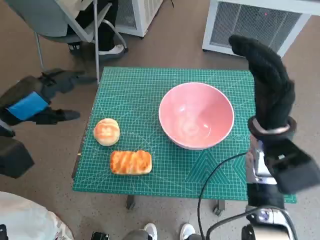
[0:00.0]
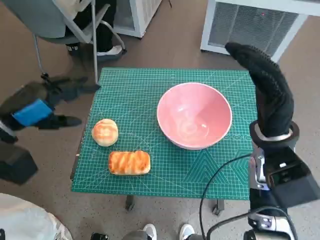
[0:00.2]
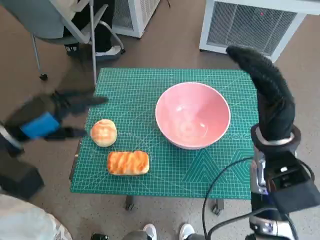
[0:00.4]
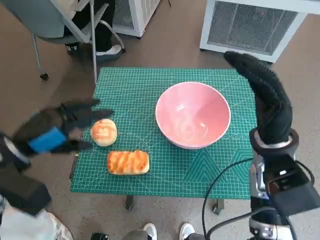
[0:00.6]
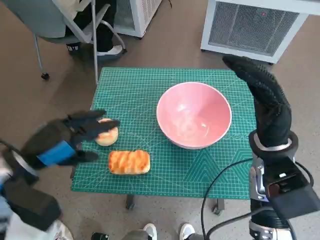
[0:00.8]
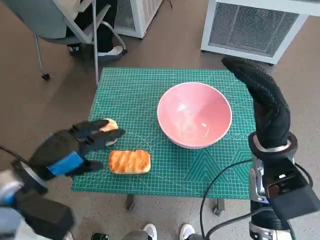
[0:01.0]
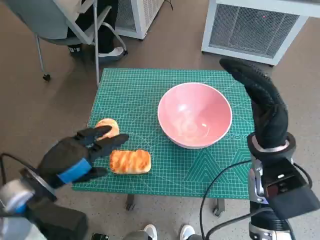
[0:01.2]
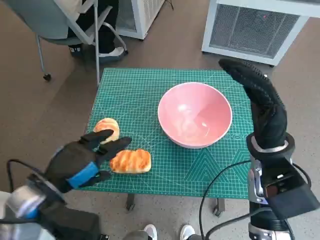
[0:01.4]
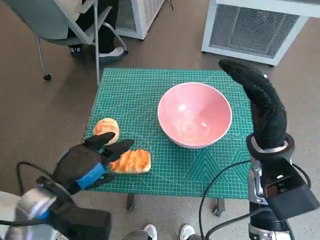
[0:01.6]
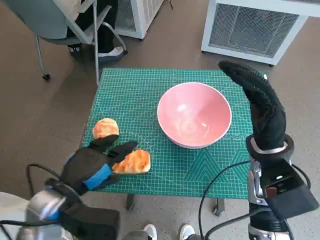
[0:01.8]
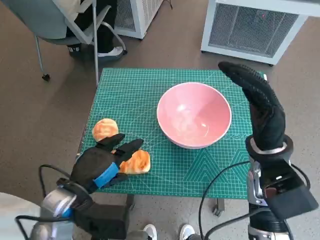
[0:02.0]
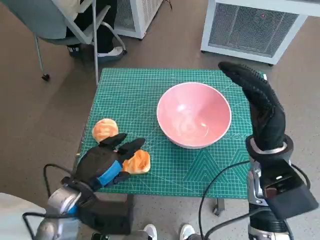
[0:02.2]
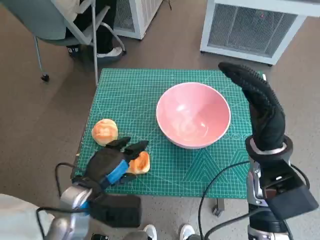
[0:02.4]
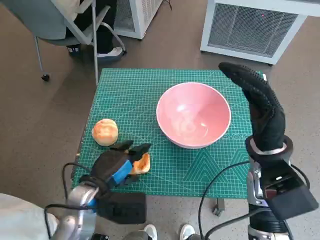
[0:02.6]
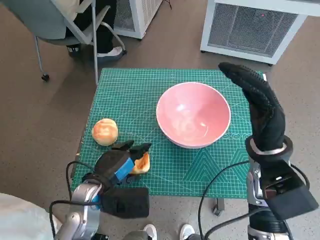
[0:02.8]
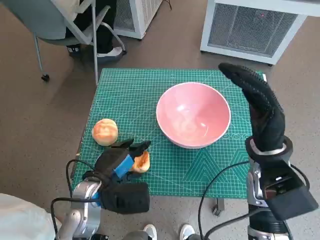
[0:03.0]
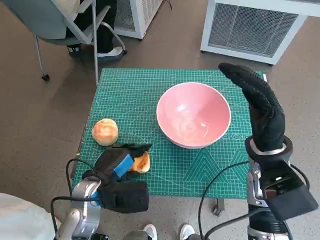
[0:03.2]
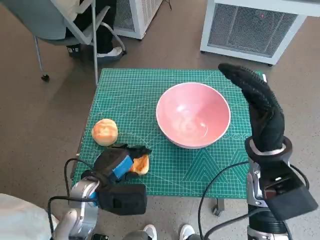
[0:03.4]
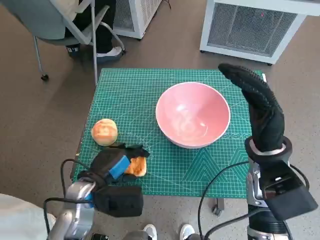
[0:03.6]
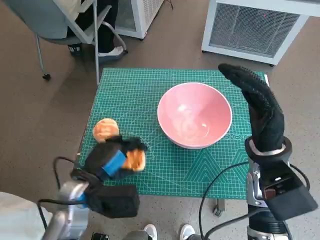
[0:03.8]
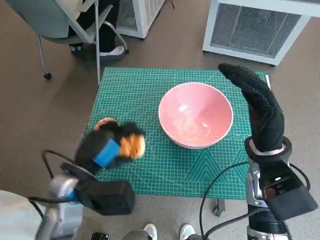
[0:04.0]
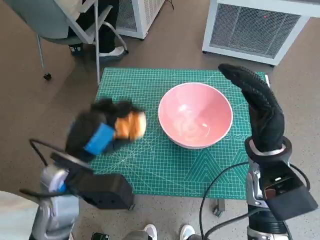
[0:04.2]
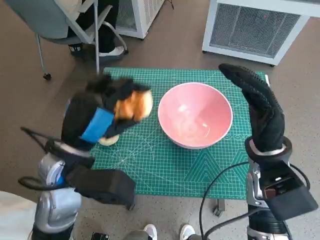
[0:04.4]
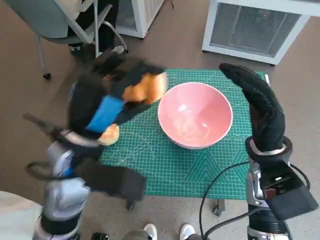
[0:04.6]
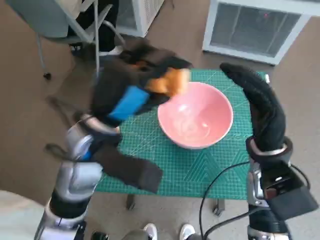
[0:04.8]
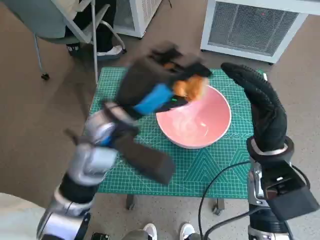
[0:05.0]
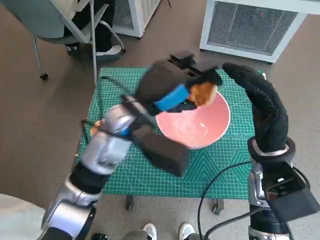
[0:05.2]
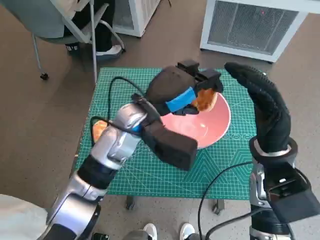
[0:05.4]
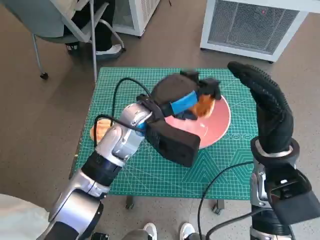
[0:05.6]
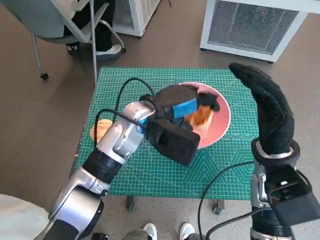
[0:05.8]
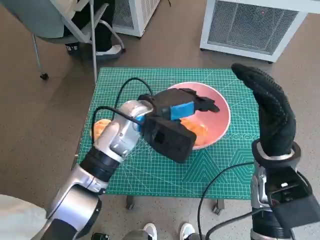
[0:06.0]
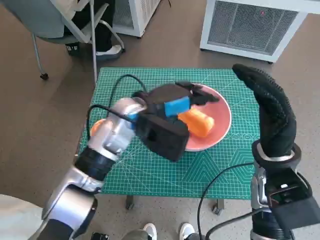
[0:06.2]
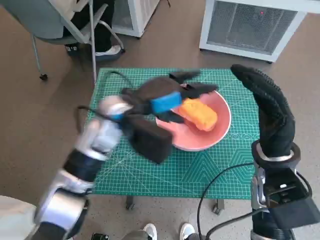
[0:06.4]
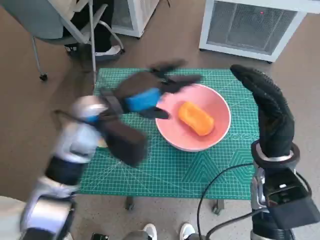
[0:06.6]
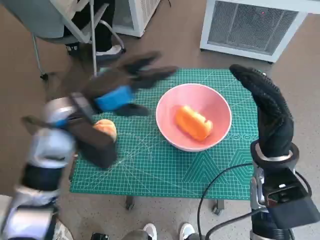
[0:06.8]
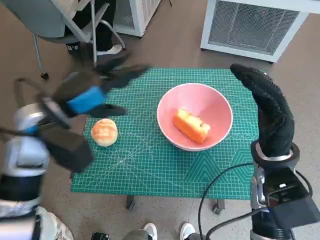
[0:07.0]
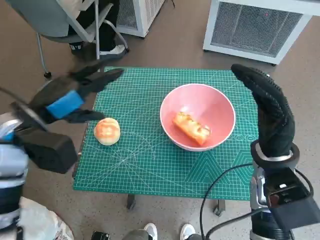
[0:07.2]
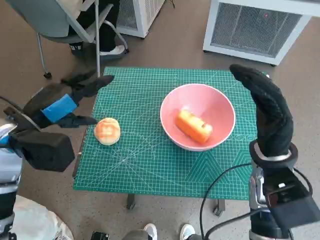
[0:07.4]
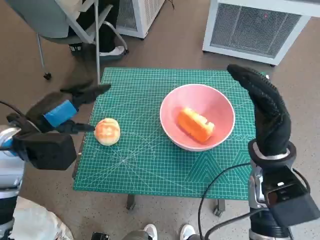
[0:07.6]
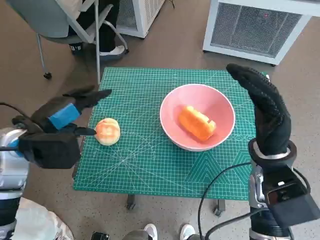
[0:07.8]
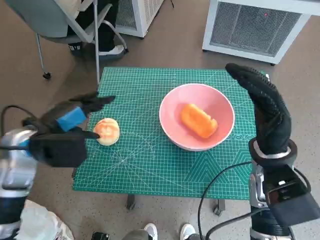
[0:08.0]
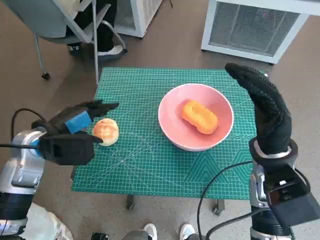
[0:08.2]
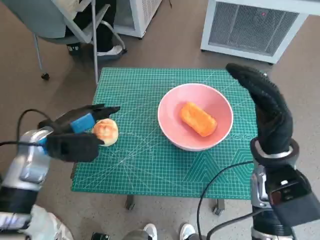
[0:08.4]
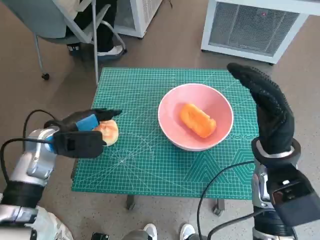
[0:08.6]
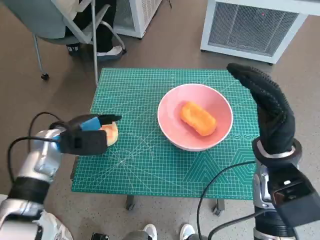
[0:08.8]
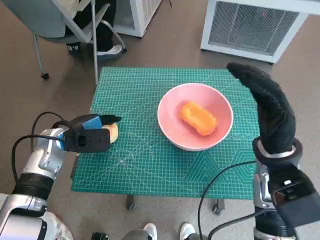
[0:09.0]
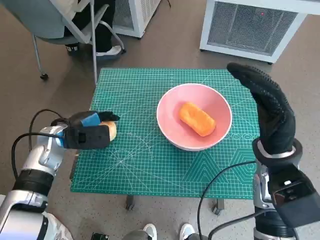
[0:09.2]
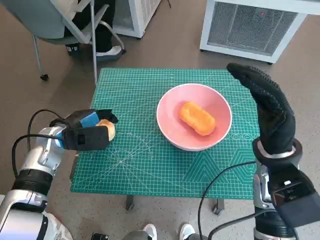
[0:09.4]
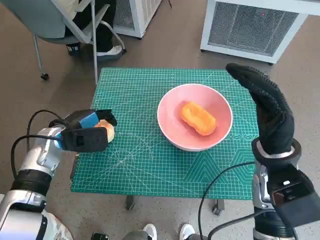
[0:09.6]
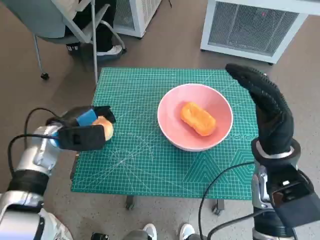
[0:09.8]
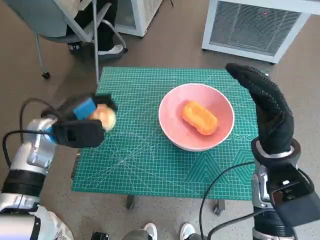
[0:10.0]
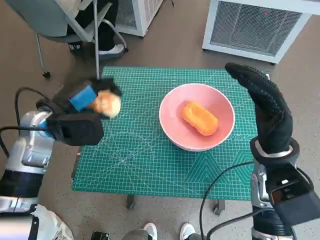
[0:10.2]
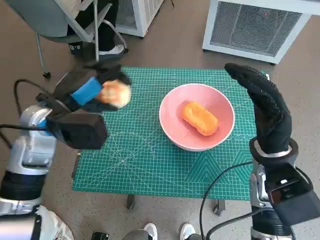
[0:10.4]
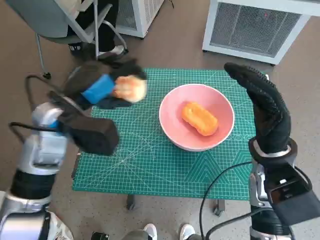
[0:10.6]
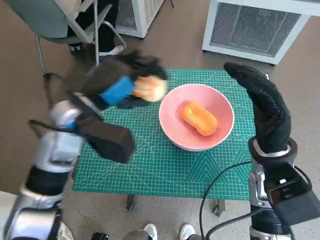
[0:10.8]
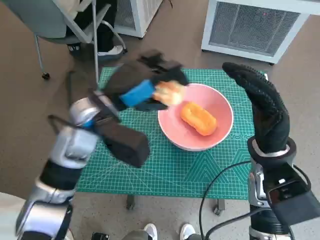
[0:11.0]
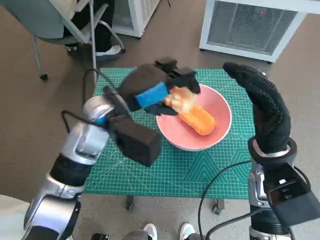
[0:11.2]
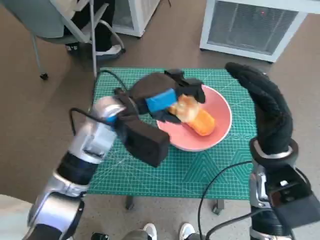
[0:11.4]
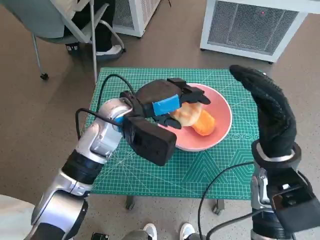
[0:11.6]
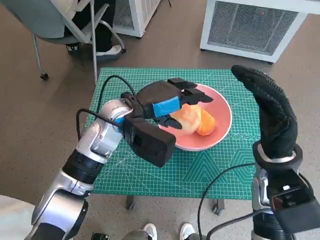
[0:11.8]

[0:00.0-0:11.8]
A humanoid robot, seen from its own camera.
Task of the whole recording: Push the bowl to the center of the table and put the bread into the bowl.
Step, 0:00.0 to 0:03.6: Grasp the long bread with left hand.
Step, 0:03.8 to 0:06.4: Place the long bread in pink bowl with left hand.
Step, 0:06.6 to 0:09.4: Grasp the round bread with left hand.
0:00.0 to 0:01.4: The left hand travels backward, to the right and downward by some 15 cm.
0:01.4 to 0:03.0: The left hand heads downward and to the right, covering approximately 10 cm.
0:03.0 to 0:04.4: The left hand heads upward, covering about 10 cm.
0:04.4 to 0:06.0: The left hand shifts about 15 cm forward and to the right.
0:06.0 to 0:07.4: The left hand heads to the left, covering approximately 20 cm.
0:07.4 to 0:08.8: The left hand heads downward, covering about 10 cm.
0:08.8 to 0:10.4: The left hand goes approximately 10 cm upward.
0:10.4 to 0:11.8: The left hand moves to the right, about 10 cm.

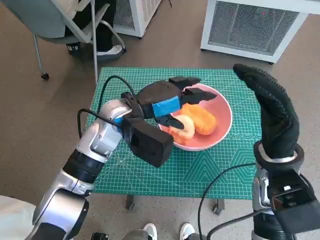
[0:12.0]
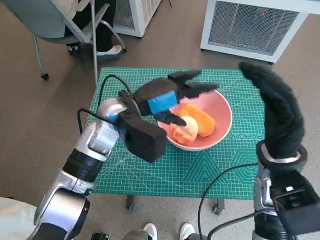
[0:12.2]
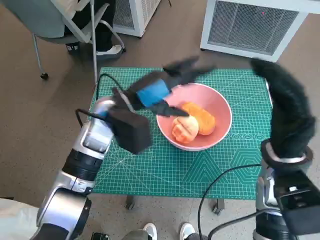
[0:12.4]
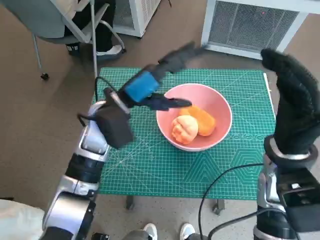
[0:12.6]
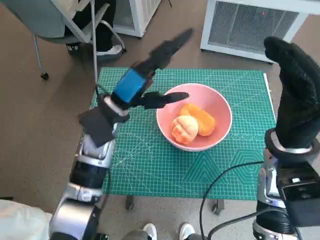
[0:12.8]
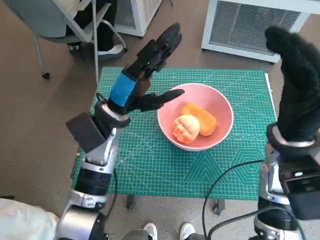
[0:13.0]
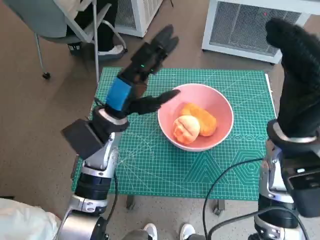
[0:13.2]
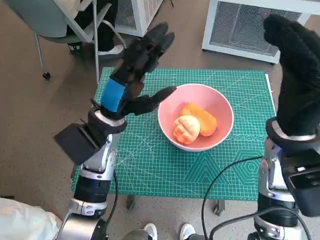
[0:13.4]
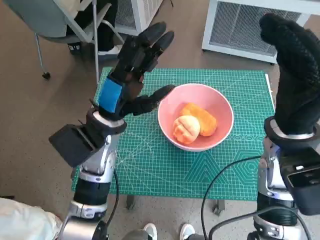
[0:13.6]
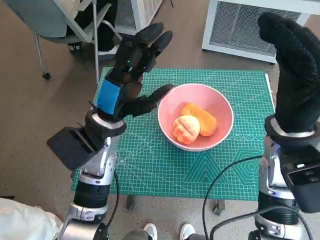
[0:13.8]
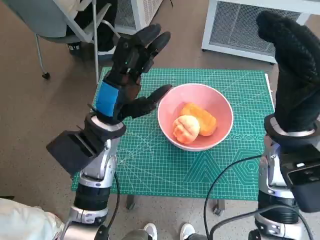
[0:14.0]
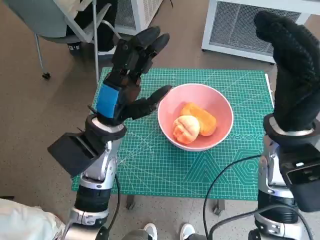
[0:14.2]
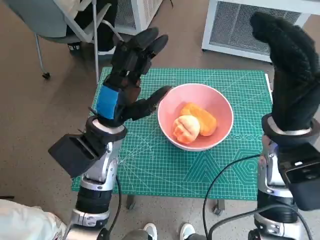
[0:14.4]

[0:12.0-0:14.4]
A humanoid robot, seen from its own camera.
Task of the whole recording: Push the bowl to the center of the table and put the bread into the bowl.
0:13.2 to 0:14.4: The hands move only a little.

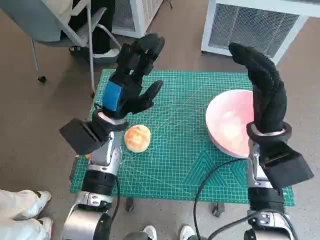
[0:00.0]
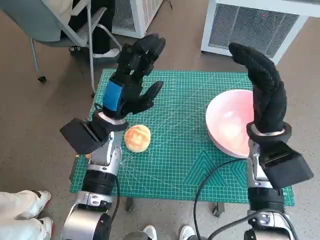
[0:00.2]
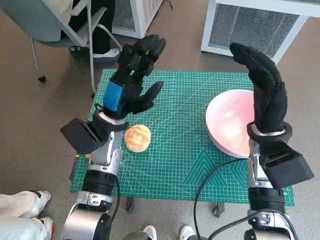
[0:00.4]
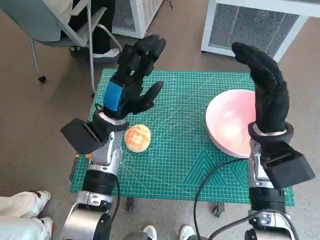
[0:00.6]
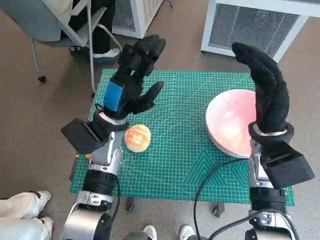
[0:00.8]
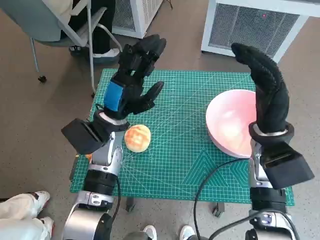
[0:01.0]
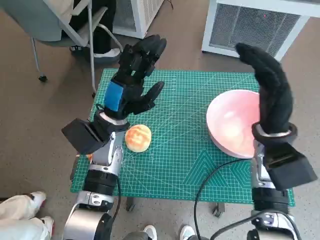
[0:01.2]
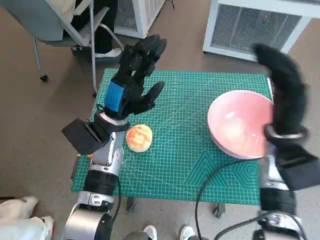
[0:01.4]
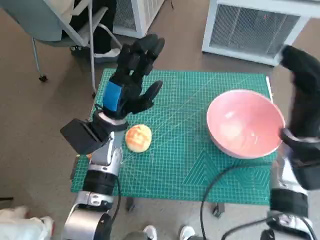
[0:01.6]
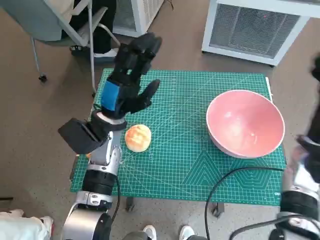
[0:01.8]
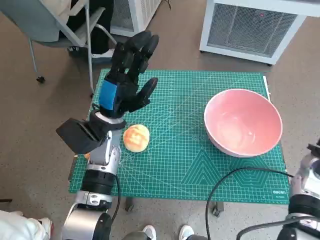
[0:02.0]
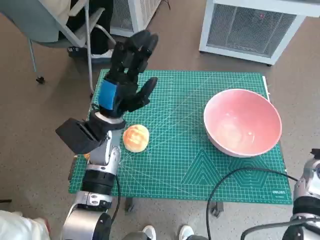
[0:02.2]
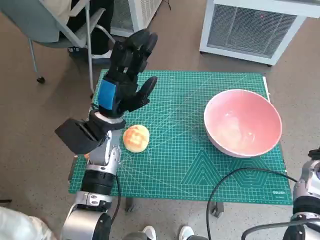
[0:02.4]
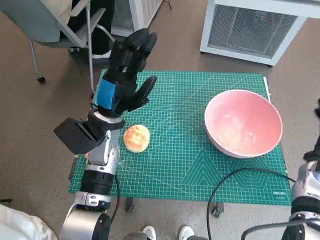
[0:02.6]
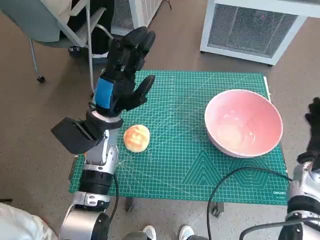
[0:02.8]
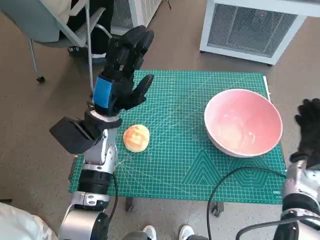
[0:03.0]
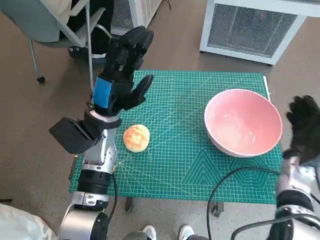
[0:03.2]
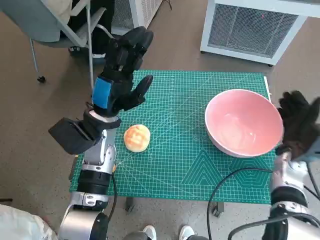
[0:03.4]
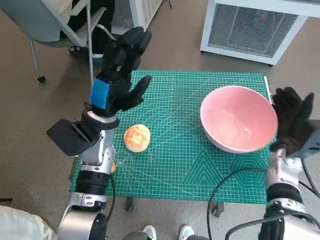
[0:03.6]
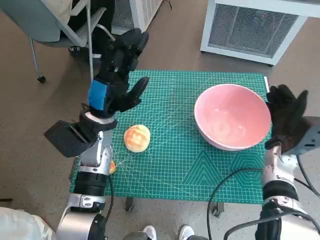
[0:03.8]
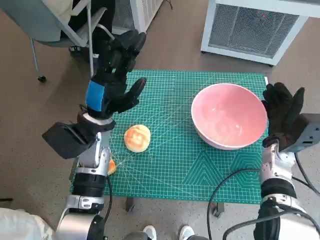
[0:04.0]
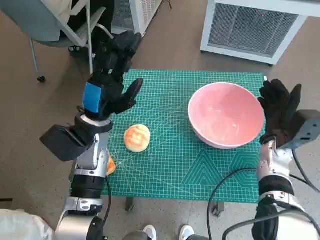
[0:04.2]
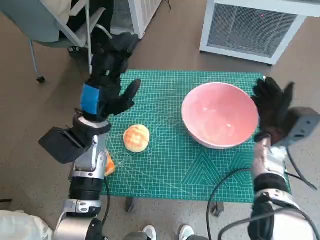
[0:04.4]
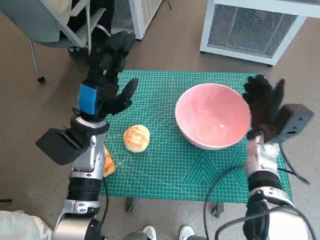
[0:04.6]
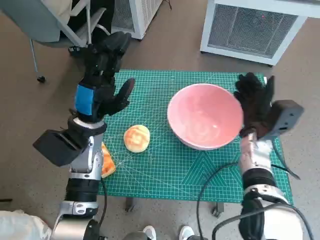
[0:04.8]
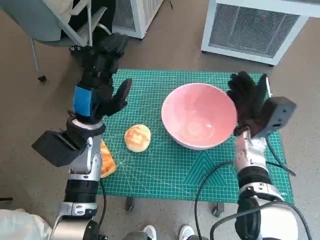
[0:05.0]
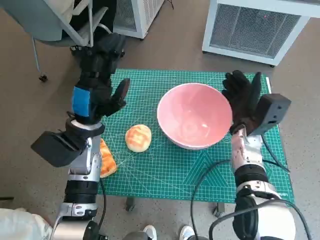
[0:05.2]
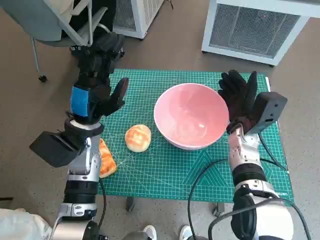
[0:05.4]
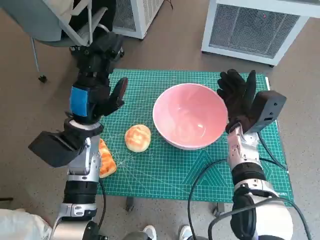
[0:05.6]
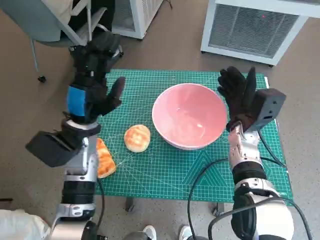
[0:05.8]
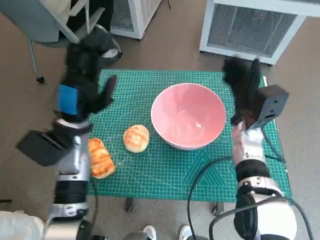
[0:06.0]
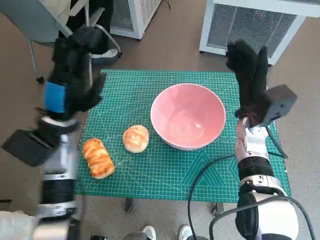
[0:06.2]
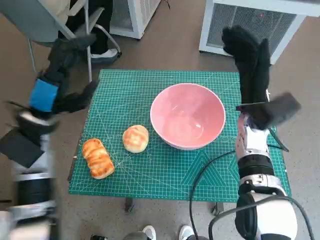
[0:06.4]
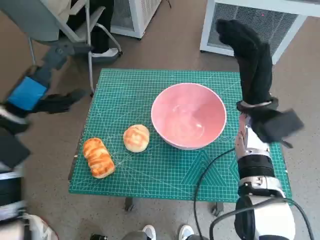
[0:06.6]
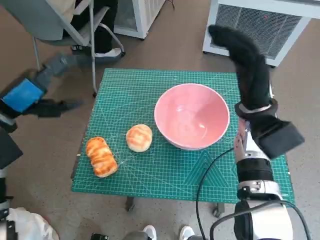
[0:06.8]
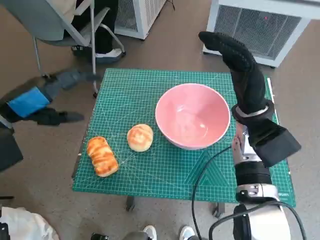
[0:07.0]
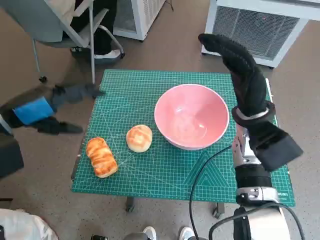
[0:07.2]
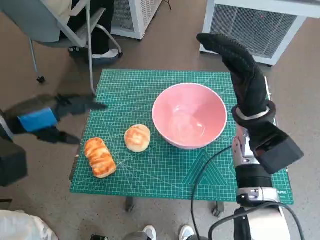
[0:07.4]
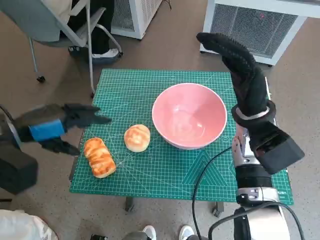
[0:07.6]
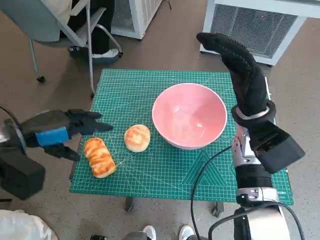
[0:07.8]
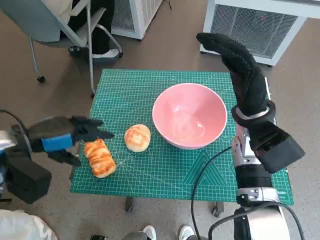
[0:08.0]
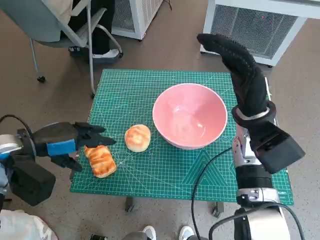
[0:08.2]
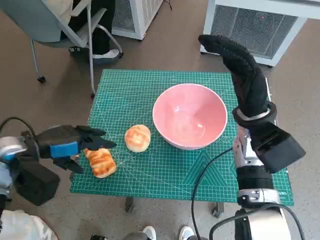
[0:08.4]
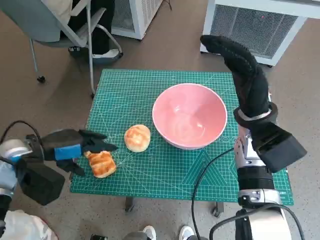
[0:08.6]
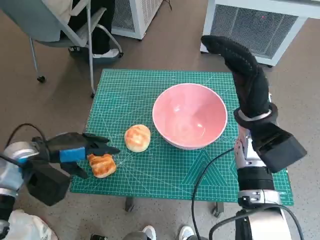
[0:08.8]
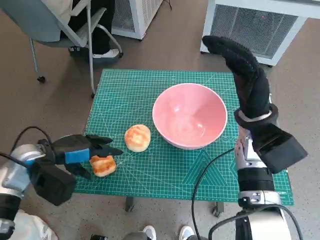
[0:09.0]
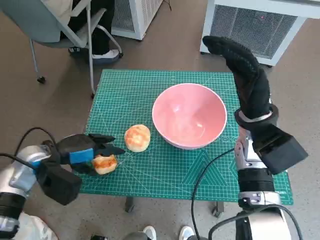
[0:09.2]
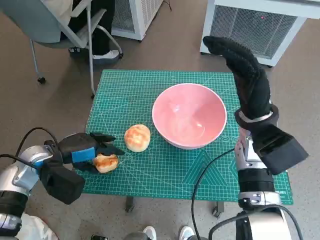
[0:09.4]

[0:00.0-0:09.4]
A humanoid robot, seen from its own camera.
Task of the whole recording: Push the bowl to the center of the table and put the bread into the bowl.
Step, 0:00.0 to 0:06.6: Move the pink bowl to the center of table with right hand.
0:01.6 to 0:03.2: The right hand moves downward and to the right, some 10 cm.
0:03.2 to 0:04.8: The right hand heads to the left, covering roughly 10 cm.
0:04.8 to 0:06.2: The right hand moves some 5 cm.
0:06.2 to 0:07.8: The left hand shifts some 10 cm to the left, while the right hand shifts by approximately 5 cm.
0:07.8 to 0:09.4: The left hand is displaced downward by roughly 10 cm.
